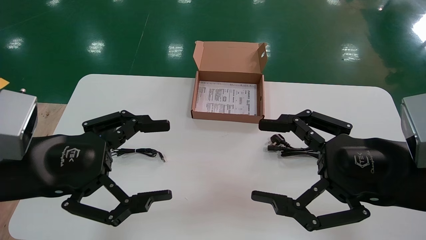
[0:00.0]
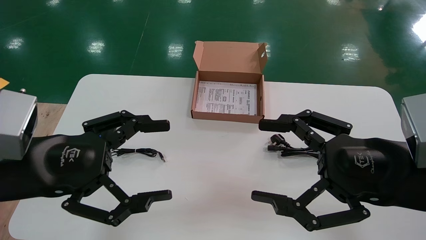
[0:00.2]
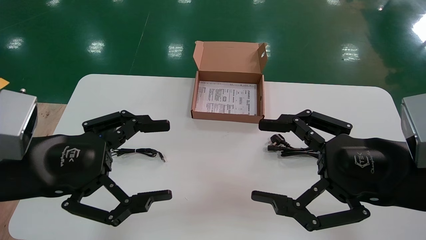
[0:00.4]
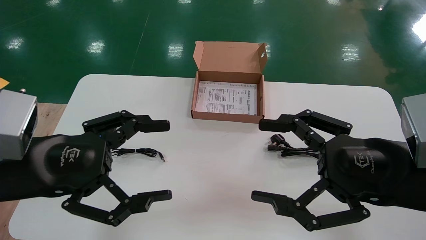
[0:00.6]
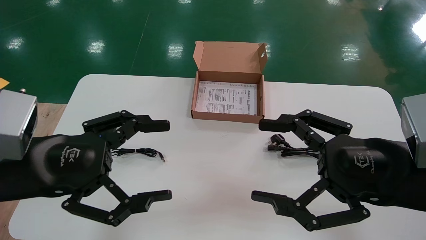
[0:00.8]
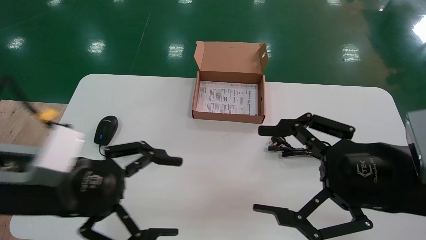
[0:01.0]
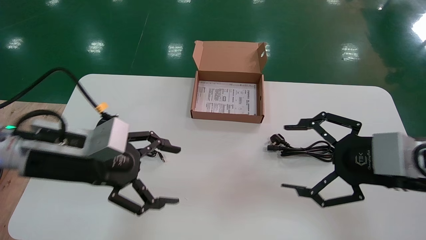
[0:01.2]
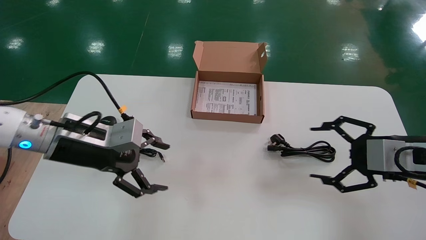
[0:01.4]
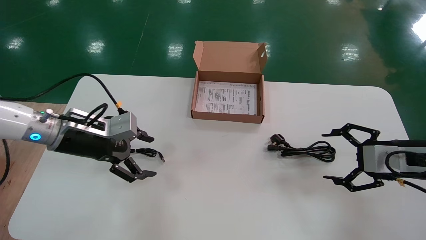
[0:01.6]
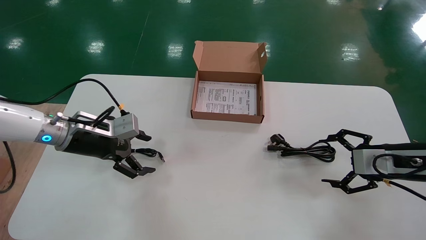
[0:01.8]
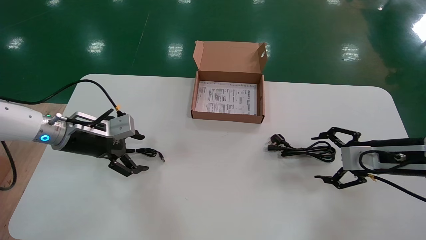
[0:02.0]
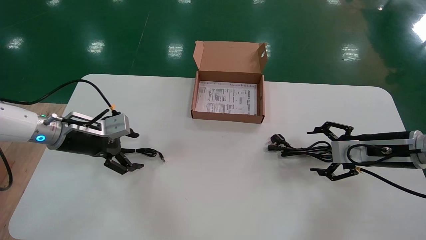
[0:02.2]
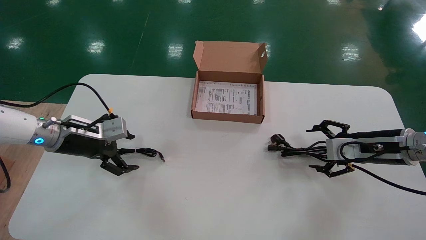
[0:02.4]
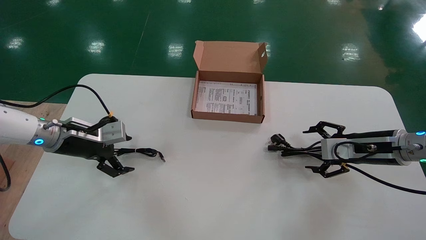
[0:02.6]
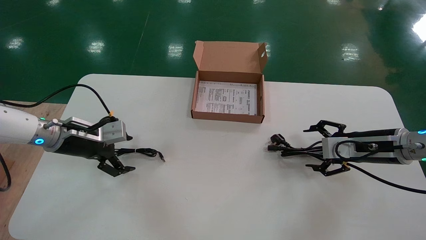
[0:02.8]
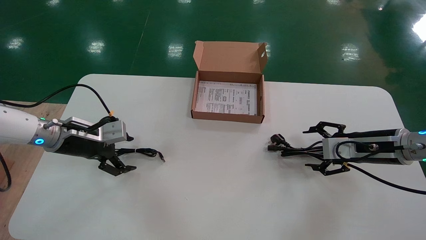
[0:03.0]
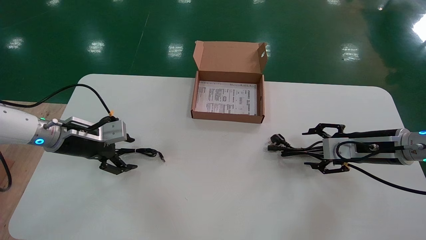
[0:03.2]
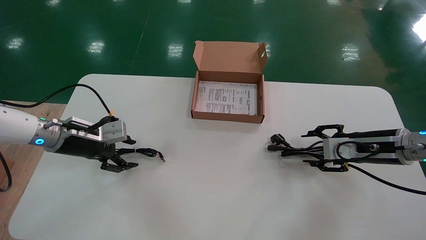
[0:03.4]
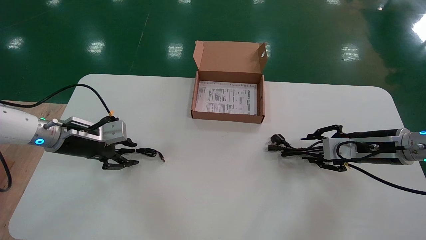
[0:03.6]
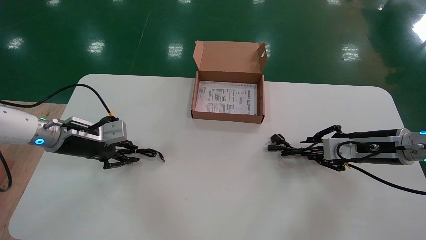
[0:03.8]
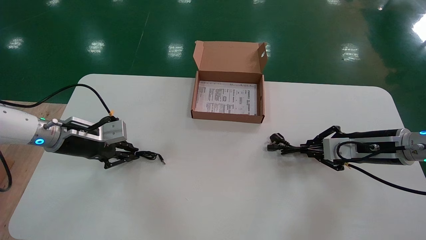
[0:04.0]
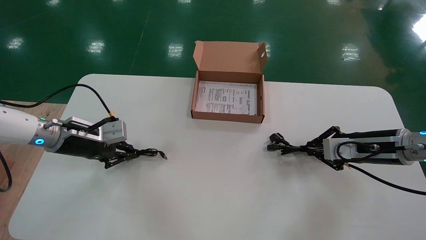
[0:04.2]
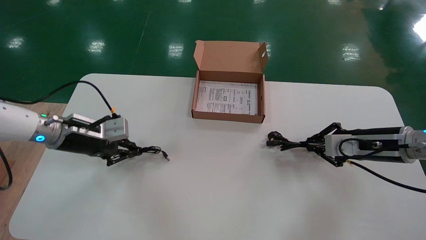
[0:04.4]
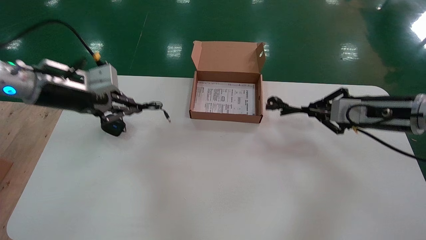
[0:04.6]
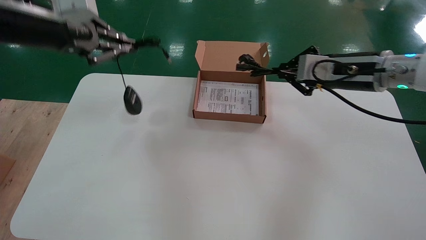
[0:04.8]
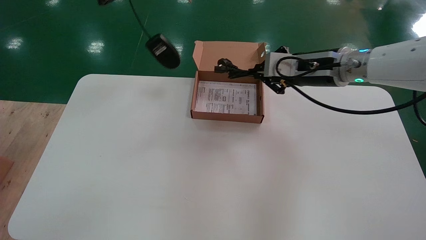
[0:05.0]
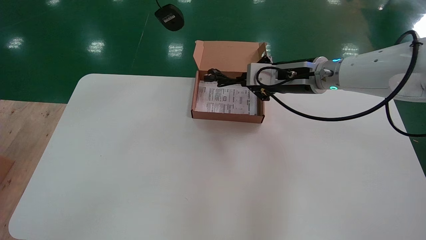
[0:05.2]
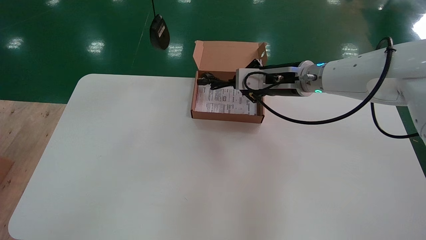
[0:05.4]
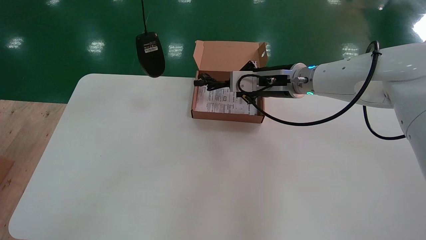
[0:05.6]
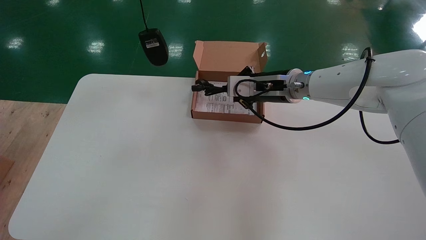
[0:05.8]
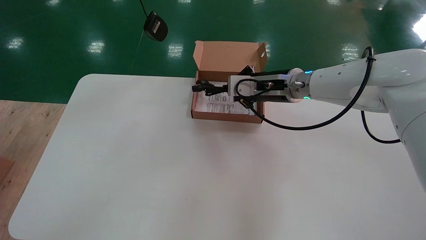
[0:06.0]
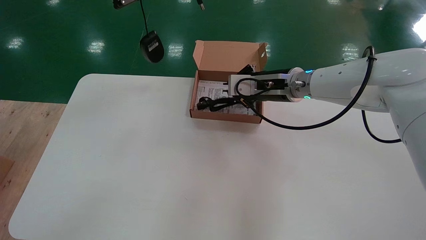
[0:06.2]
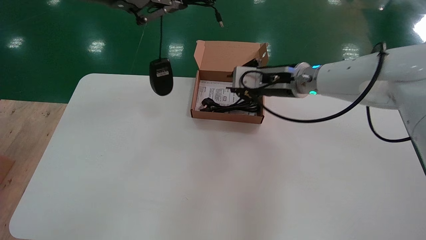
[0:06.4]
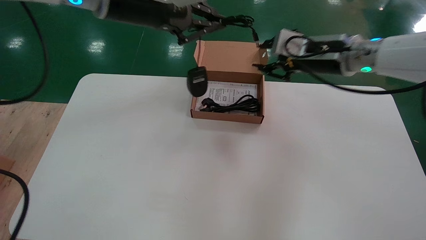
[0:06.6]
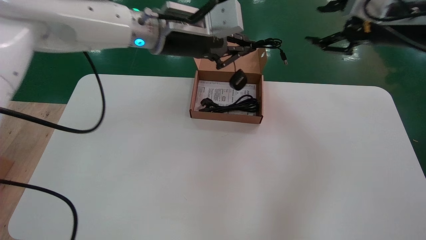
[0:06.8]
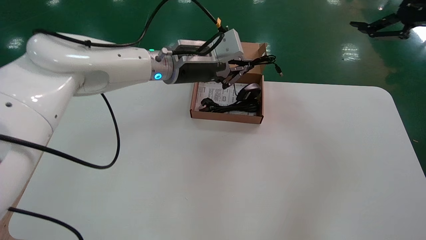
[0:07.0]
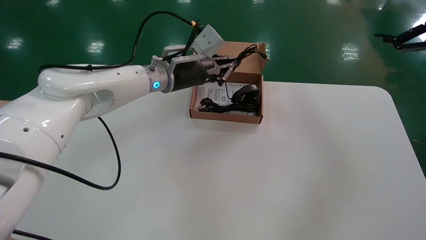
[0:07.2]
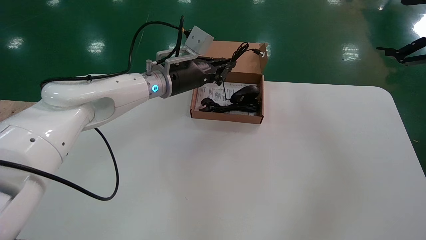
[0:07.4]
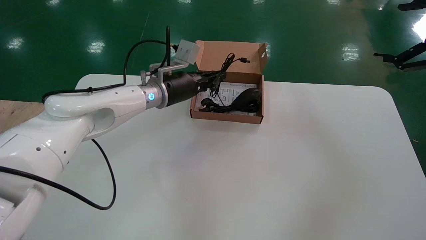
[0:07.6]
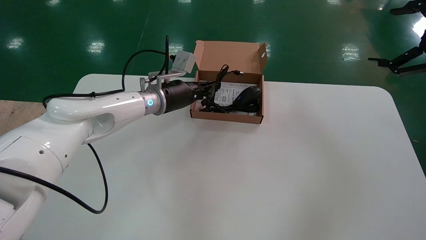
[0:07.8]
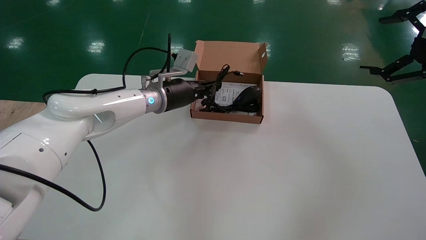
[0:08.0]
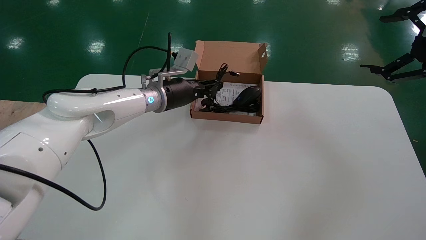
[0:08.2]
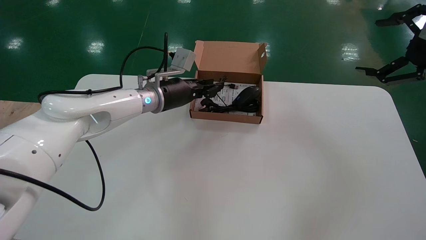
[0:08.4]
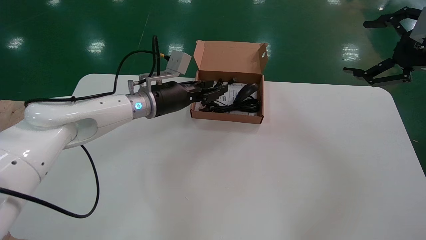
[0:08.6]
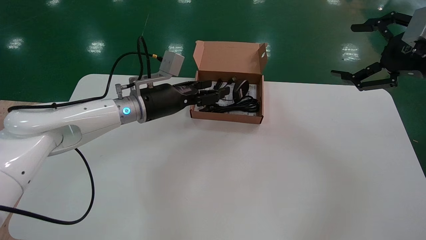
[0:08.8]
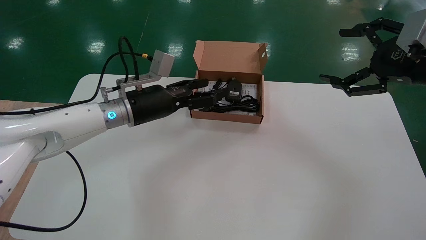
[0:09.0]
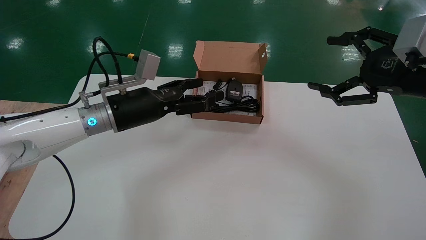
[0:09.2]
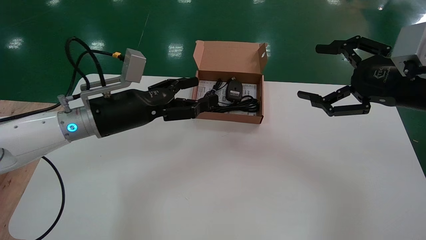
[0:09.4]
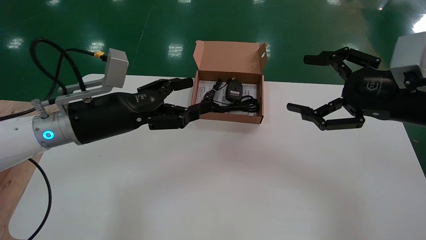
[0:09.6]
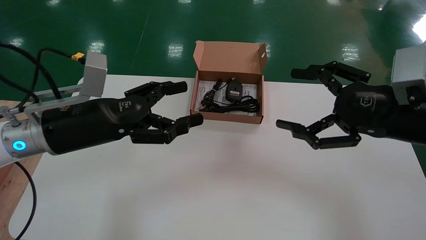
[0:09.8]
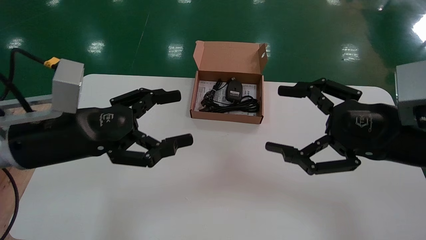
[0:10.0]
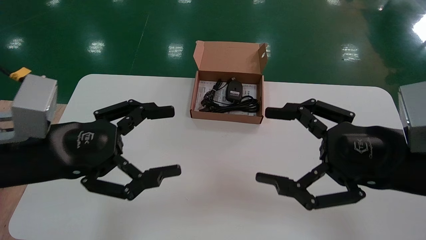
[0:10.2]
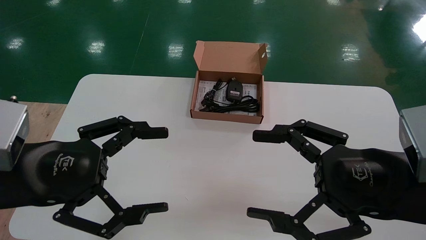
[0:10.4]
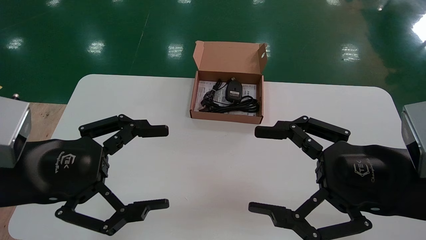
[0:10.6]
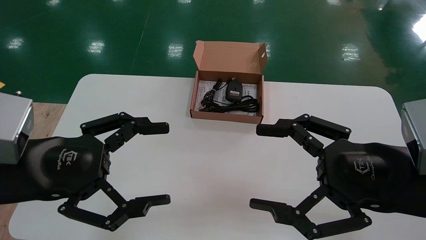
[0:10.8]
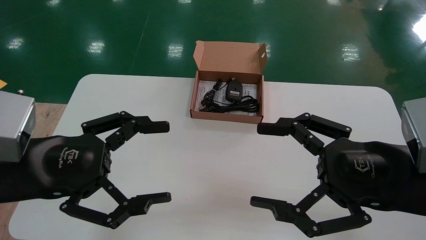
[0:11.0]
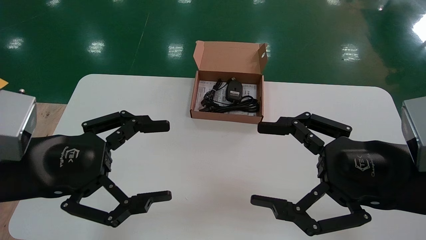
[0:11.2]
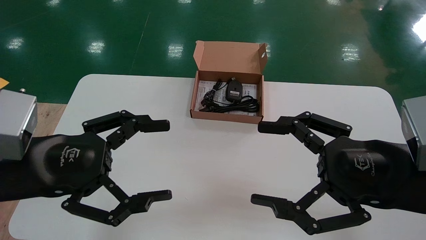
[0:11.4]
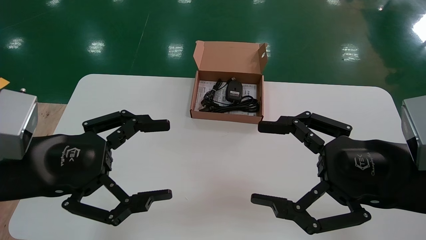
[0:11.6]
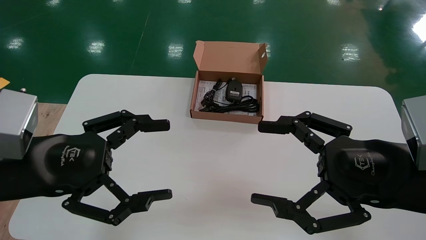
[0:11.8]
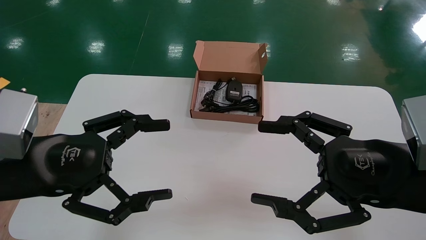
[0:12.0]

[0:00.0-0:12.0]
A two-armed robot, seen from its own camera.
Step, 0:01.4 to 0:04.2: Simultaneously pick up the mouse and power cord from the accessory packaging area.
Step, 0:04.4 to 0:08.6: Place the mouse and power cord into the box.
0:00.0 to 0:01.6: The left gripper shifts approximately 15 cm forward; the right gripper heads to the right and forward, covering some 15 cm.
0:01.6 to 0:03.0: The left gripper travels to the left by approximately 5 cm, while the right gripper goes some 10 cm forward.
0:03.0 to 0:04.4: The right gripper closes its fingers, while the left gripper goes about 5 cm upward, and closes its fingers.
0:04.4 to 0:06.0: The left gripper moves upward, about 25 cm, while the right gripper moves to the left, approximately 20 cm.
0:06.0 to 0:07.6: The right gripper is displaced to the right and backward by approximately 30 cm, and opens up, while the left gripper heads downward, forward and to the right, covering roughly 35 cm.
0:07.6 to 0:09.0: The left gripper heads backward and to the left, covering approximately 10 cm, and opens its fingers, while the right gripper goes roughly 5 cm to the left.
0:09.0 to 0:10.4: The left gripper shifts roughly 25 cm backward and to the left; the right gripper travels backward, to the left and downward by approximately 20 cm.
0:10.4 to 0:12.0: The two grippers keep their place.

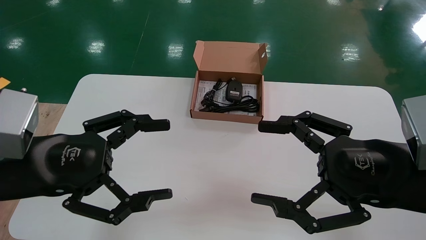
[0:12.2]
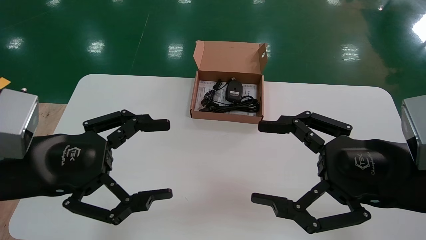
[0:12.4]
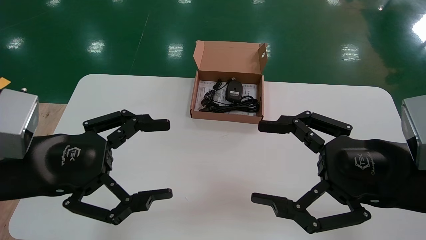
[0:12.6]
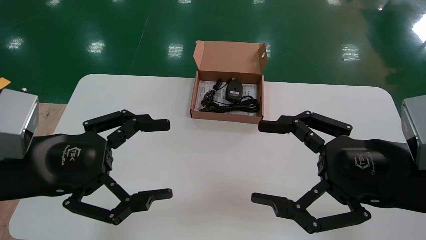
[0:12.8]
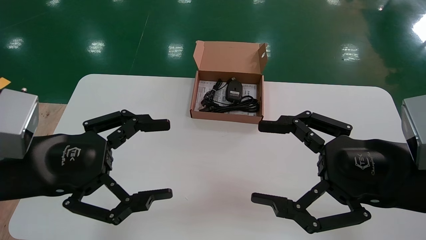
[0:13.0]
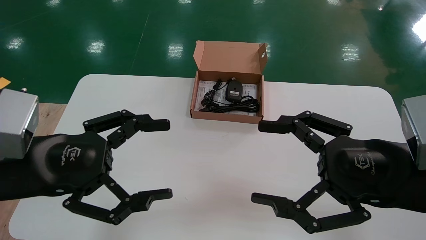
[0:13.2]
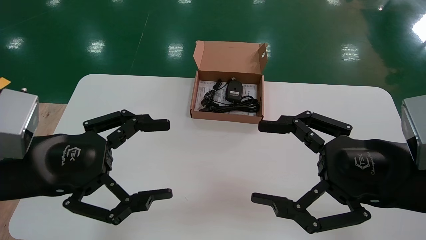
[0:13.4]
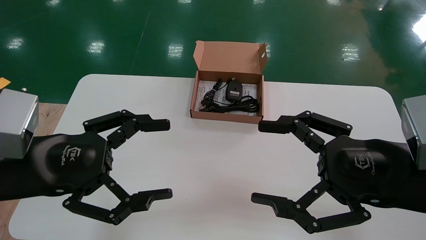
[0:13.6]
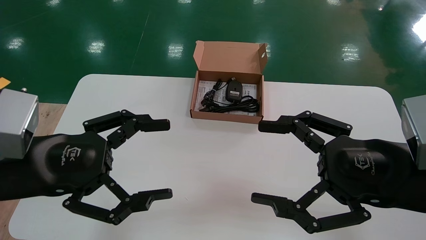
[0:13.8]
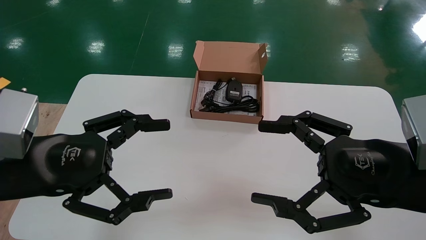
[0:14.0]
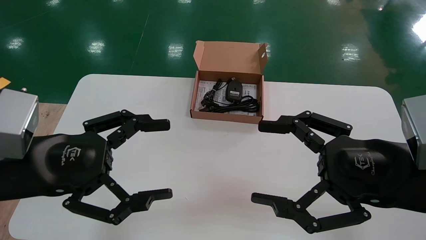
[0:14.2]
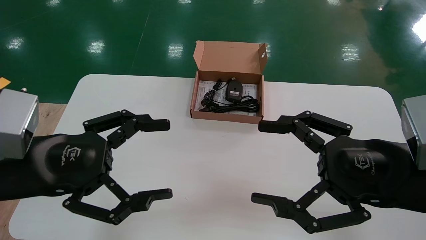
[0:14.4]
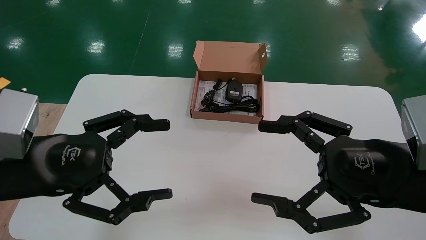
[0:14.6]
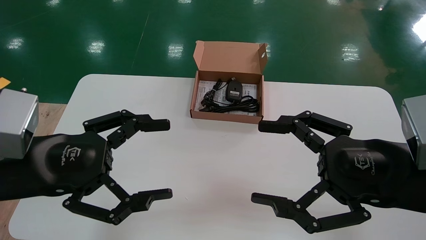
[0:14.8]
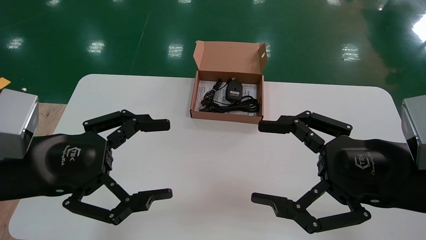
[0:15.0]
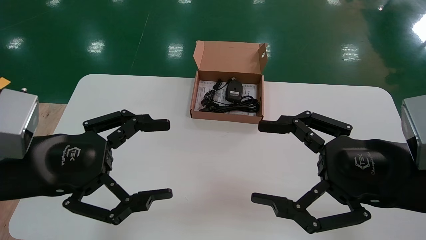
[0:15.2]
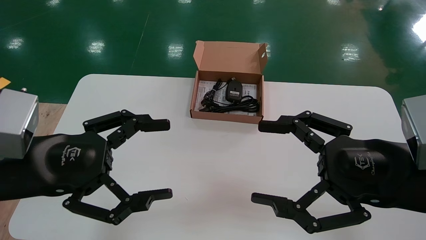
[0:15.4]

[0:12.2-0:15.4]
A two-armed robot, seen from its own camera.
0:12.2 to 0:15.4: The two grippers keep their place.
